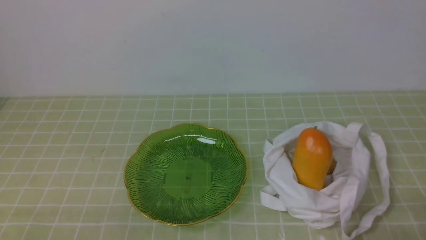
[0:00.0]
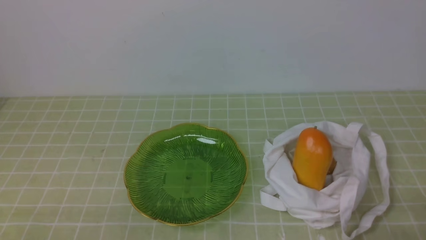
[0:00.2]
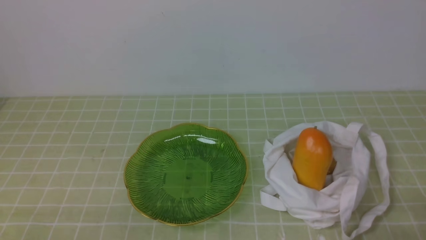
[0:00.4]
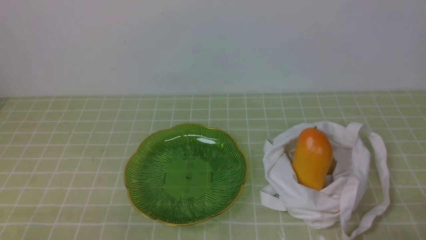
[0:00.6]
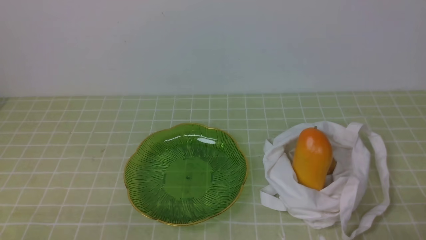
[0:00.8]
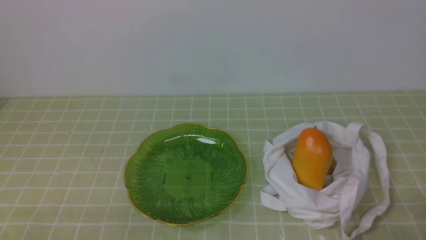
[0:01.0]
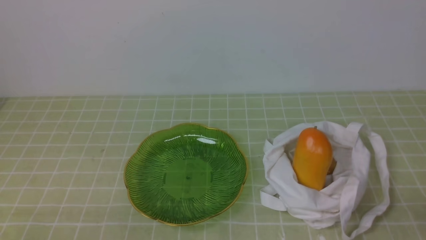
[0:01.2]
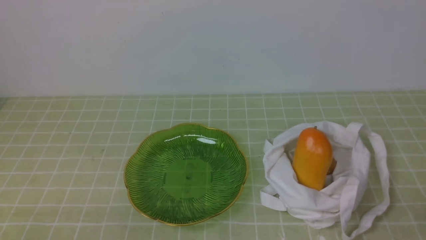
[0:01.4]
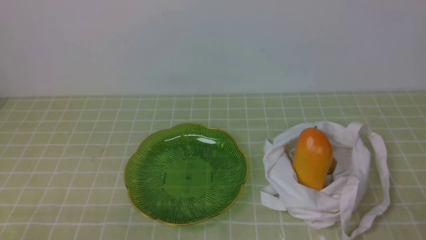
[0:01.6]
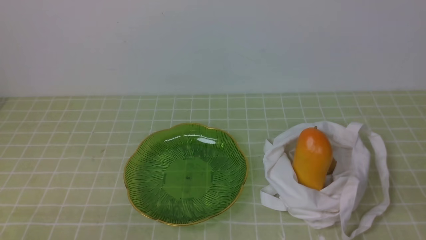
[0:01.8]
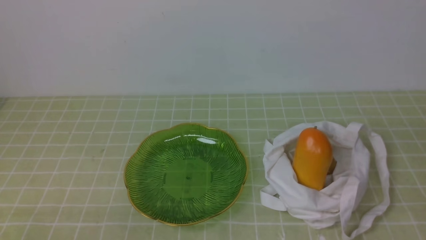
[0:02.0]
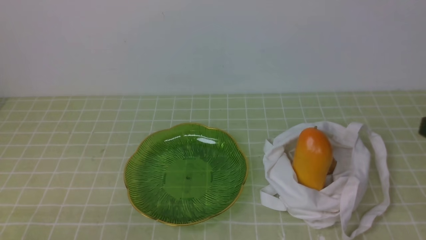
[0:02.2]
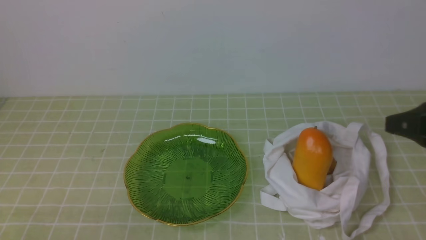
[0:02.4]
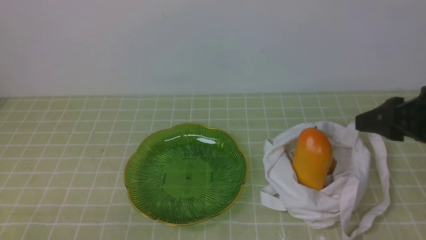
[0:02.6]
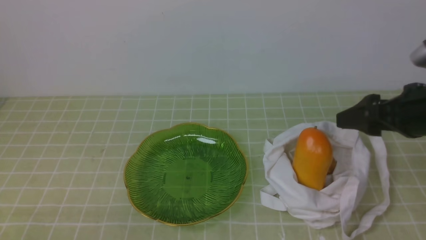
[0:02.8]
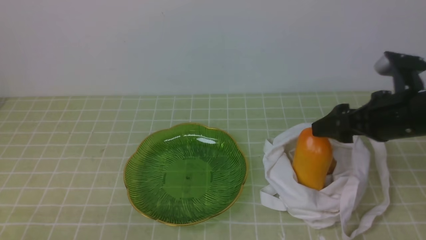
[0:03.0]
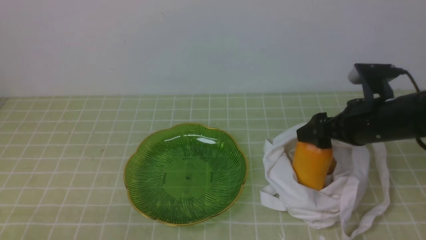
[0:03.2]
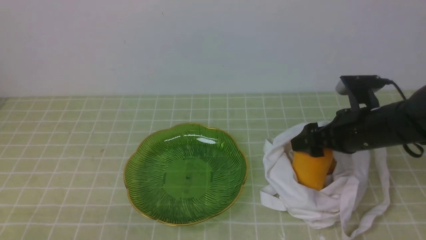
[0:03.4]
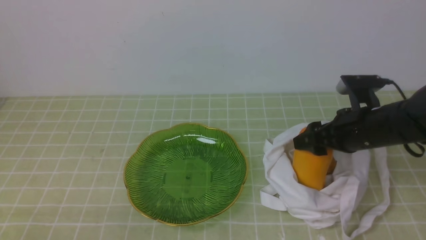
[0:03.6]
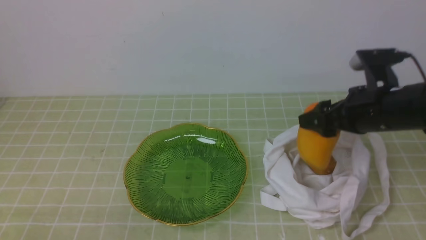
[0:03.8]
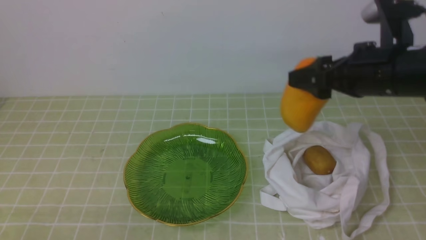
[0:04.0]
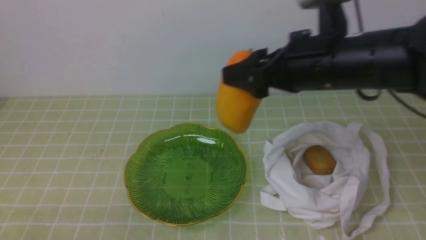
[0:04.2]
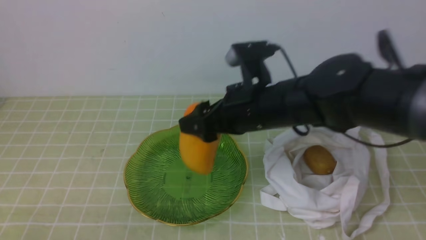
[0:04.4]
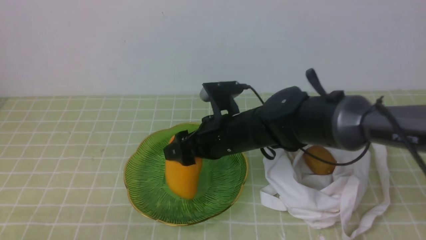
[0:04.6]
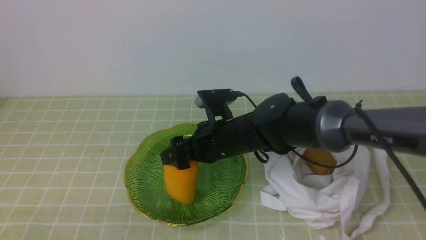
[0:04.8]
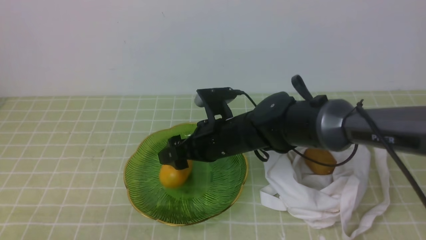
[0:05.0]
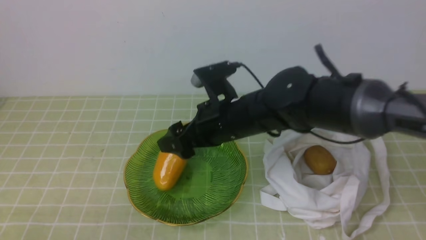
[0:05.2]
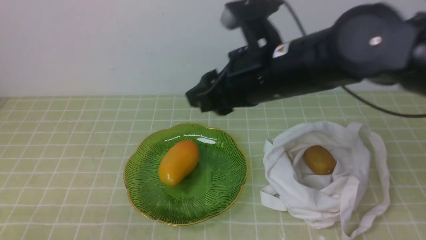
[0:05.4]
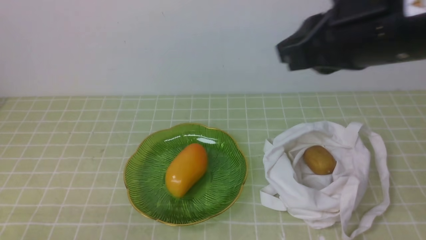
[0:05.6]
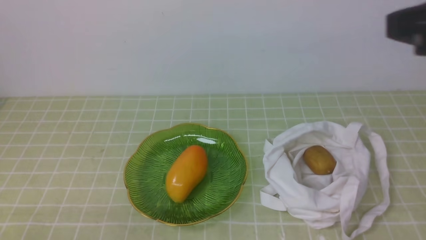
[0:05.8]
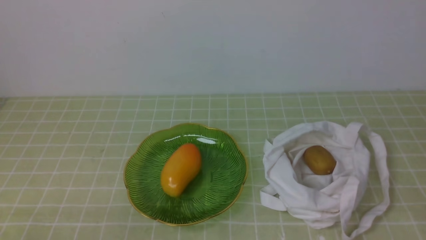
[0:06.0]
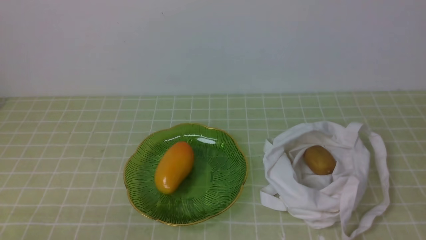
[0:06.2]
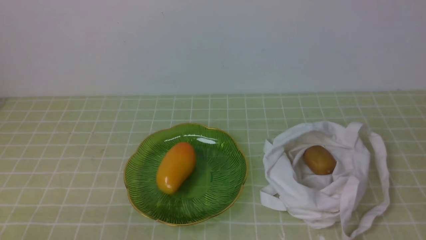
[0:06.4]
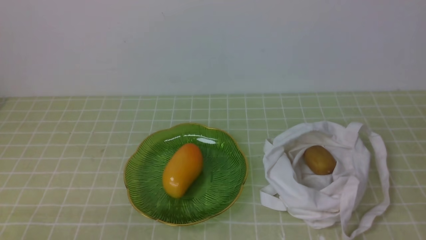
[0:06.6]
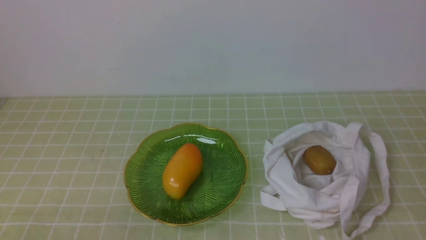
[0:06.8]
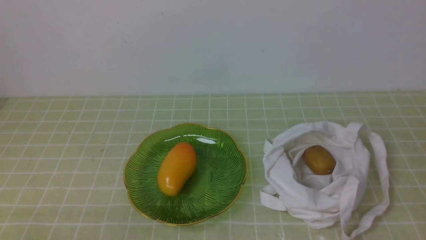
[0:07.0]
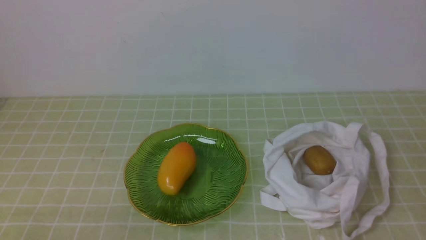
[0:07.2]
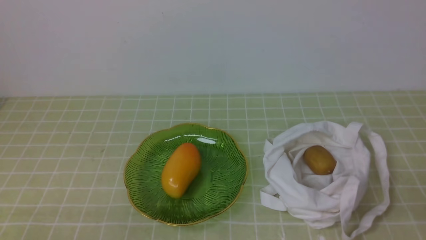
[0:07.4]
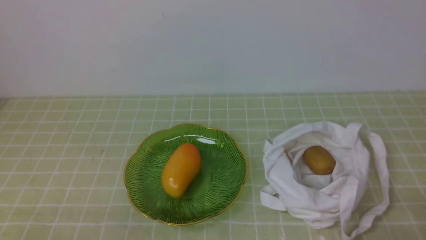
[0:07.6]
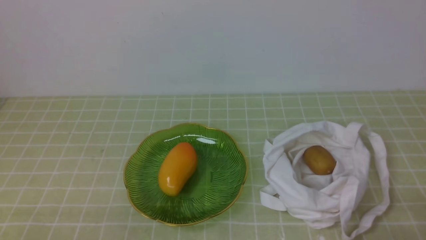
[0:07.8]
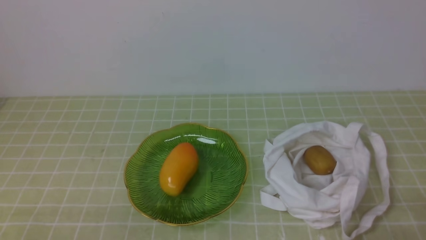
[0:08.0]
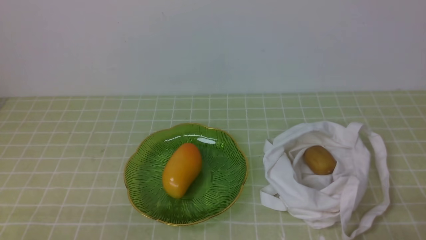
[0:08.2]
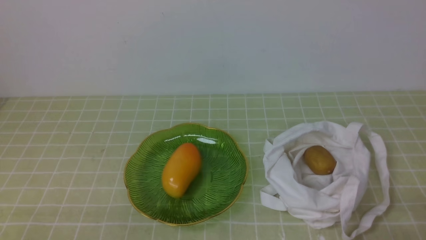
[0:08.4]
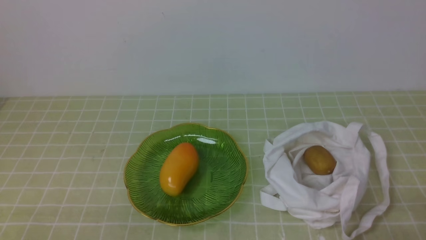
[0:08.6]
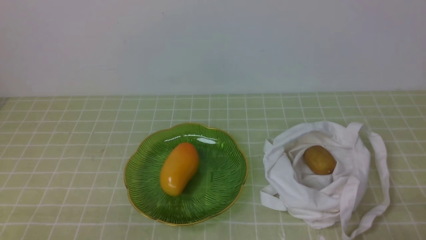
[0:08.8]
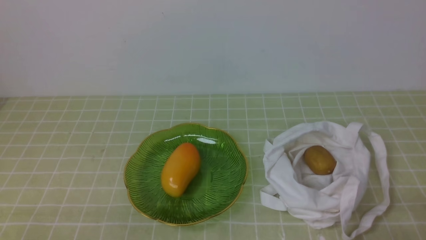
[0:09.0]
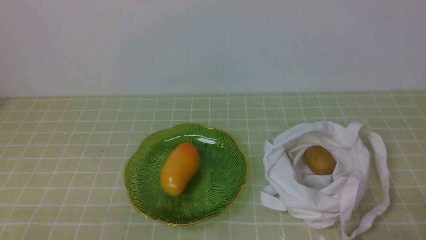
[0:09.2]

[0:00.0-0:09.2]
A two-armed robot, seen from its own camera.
Step, 0:00.0 to 0:03.6: use the right arm to grab a mango from the bag.
Step, 0:03.8 to 0:05.0: use the right arm to put the mango into the empty plate on the left.
0:01.6 to 0:03.0: The right gripper is displaced forward by about 25 cm, and opens.
0:03.0 to 0:04.6: The right gripper is displaced to the left by roughly 25 cm.
0:04.6 to 0:06.2: The right gripper heads to the right, backward and upward, covering some 40 cm, and closes.
0:06.2 to 0:07.6: The right gripper is displaced downward by approximately 20 cm.
0:07.6 to 0:09.2: Both grippers stay about where they are.

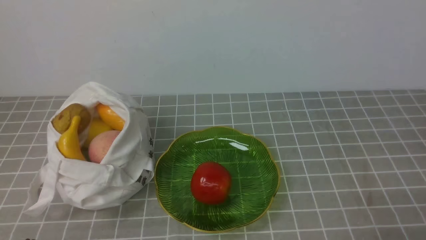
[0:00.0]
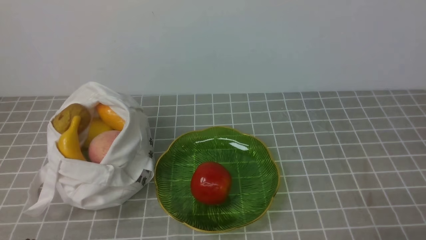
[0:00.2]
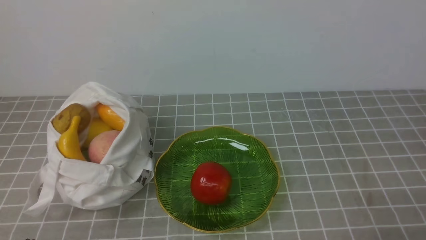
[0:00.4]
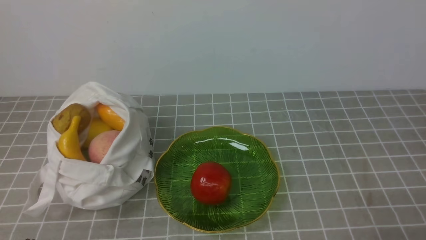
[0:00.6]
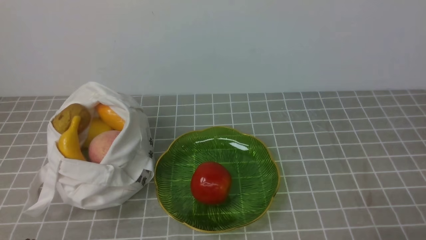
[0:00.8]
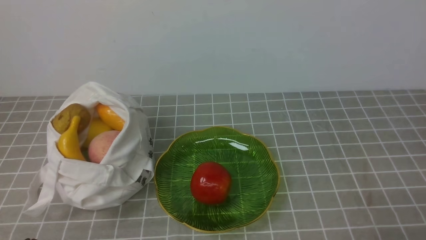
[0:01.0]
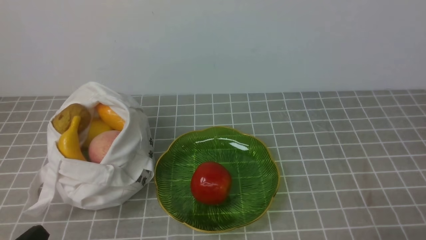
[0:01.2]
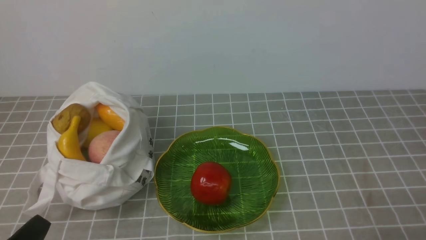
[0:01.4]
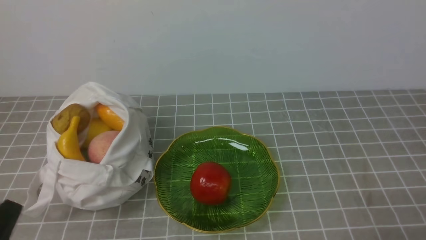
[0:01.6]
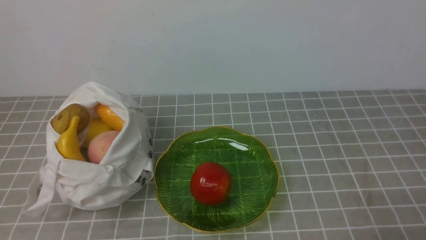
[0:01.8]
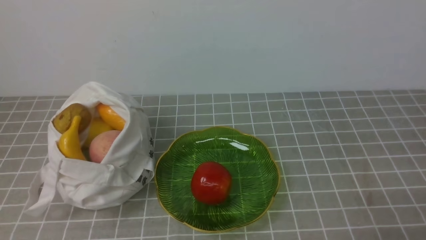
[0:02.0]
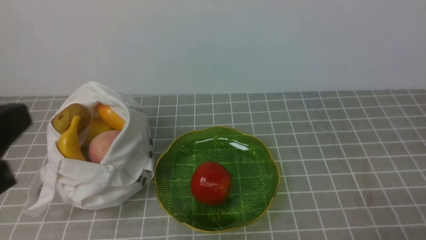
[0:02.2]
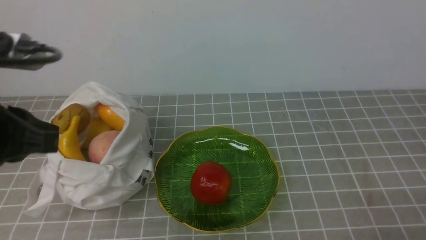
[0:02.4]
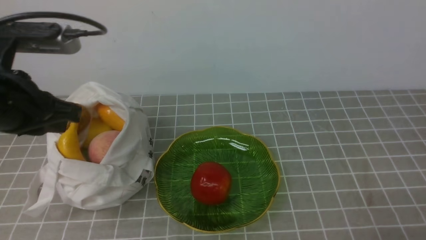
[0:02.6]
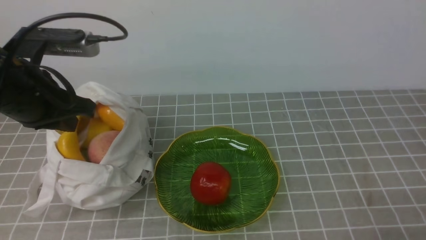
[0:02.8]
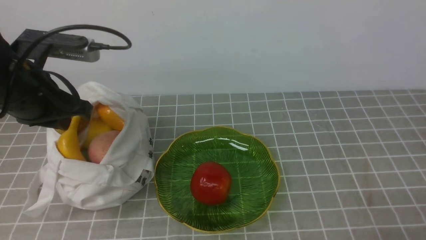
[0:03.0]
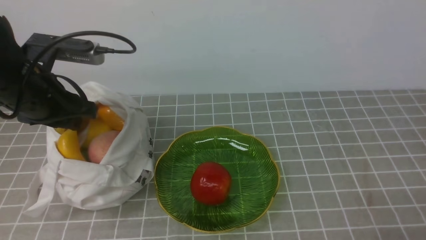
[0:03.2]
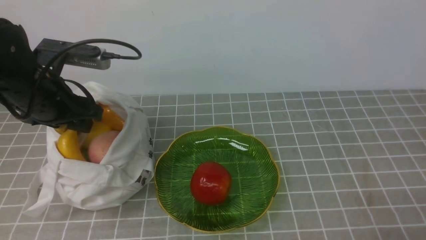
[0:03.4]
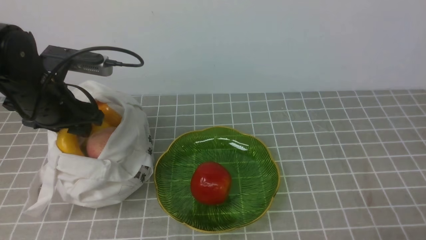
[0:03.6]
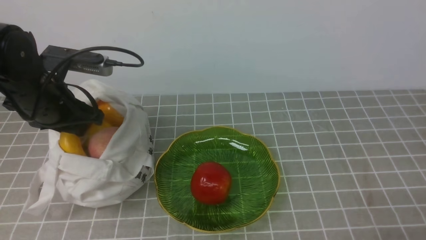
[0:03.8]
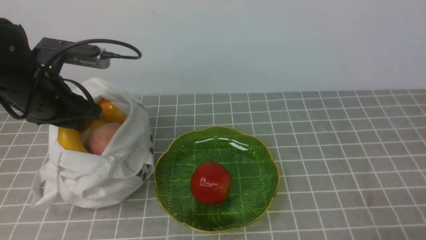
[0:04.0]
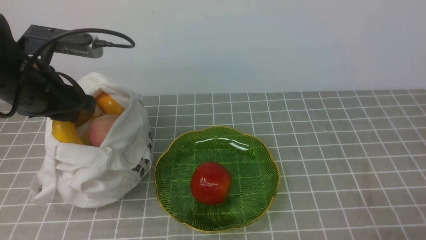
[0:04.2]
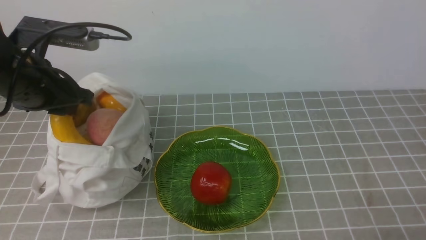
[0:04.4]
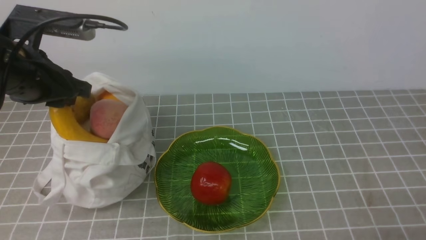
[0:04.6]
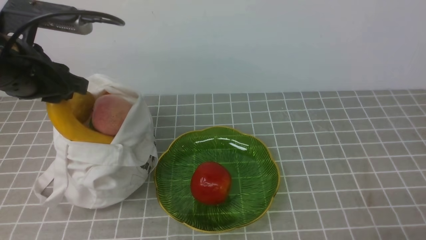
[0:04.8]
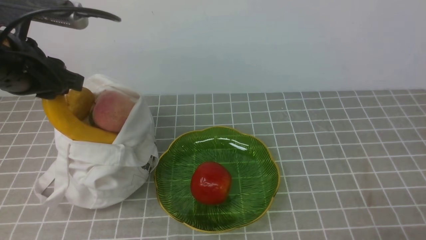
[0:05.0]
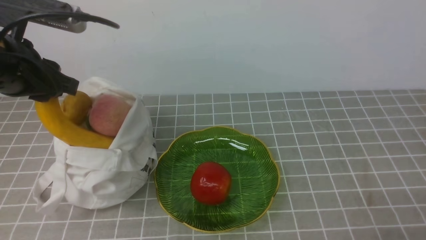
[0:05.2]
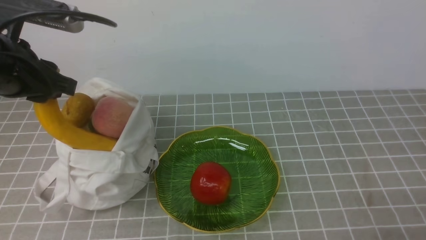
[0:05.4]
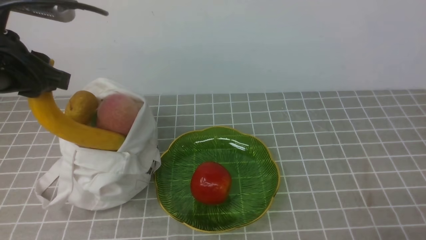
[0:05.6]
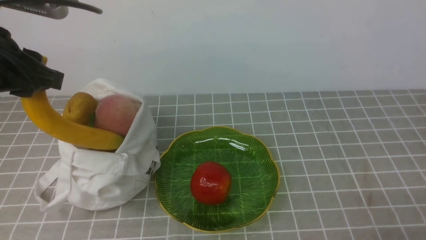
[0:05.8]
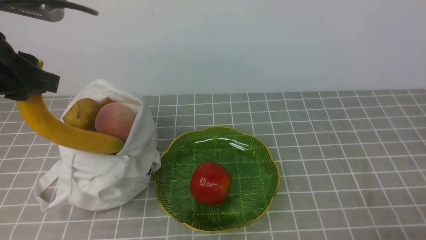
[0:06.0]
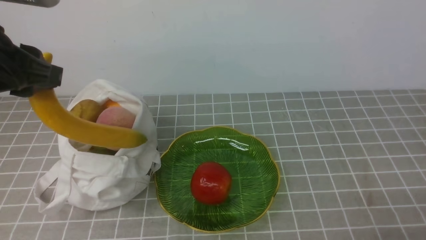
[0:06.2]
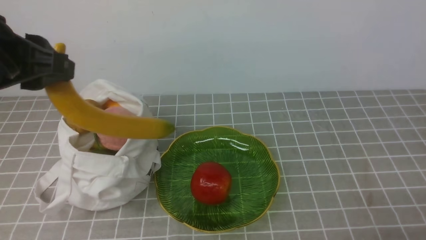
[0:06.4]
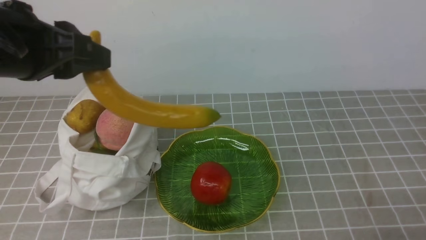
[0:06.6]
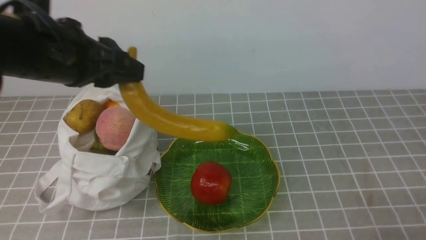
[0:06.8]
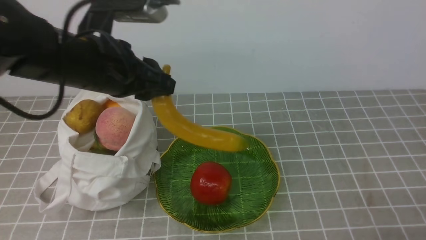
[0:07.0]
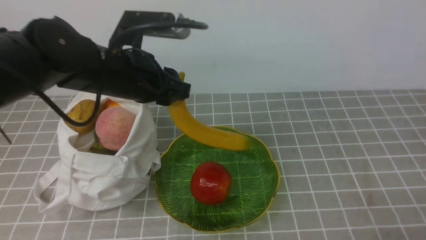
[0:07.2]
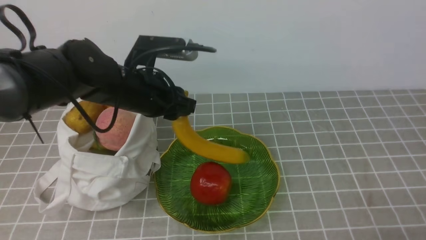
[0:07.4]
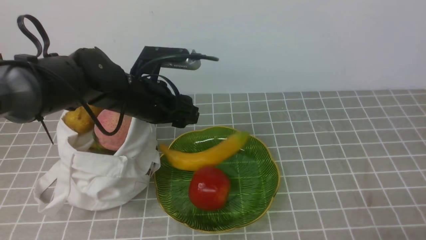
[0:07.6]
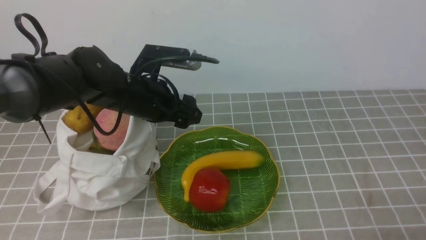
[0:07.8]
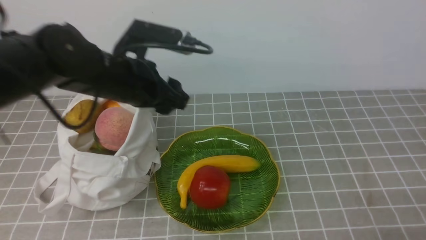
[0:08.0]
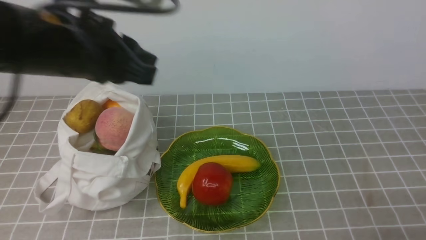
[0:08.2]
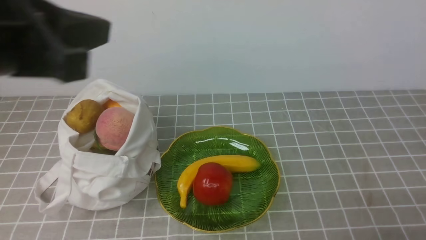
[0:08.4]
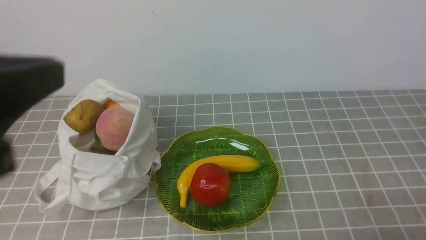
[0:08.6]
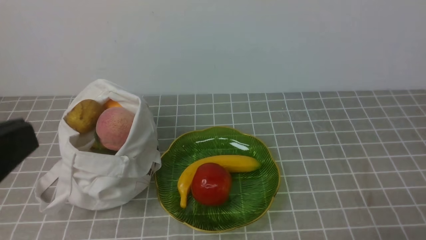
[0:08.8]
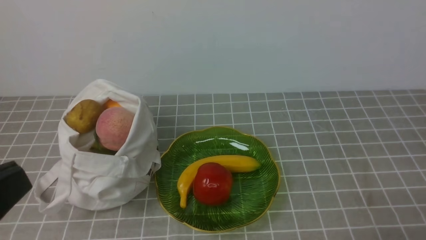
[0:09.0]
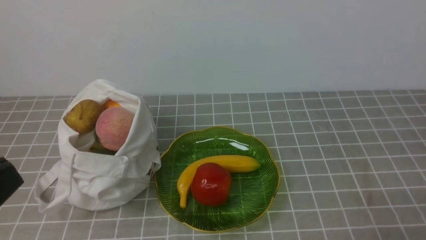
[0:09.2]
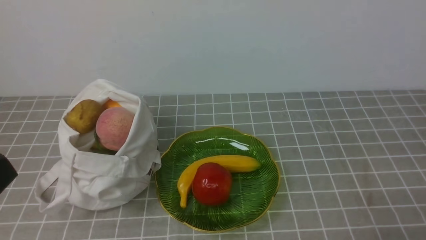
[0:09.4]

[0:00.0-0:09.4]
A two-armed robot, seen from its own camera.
Step, 0:00.0 to 0:04.0: use the left arm to grab a banana from the bag.
Step, 0:04.2 to 0:07.8: use the left arm to put the banana into the empty plate on the right.
0:01.6 to 0:03.2: The left gripper goes approximately 25 cm forward and upward, and opens up.
0:03.2 to 0:04.8: There are only small adjustments of the grippers.
0:04.8 to 0:06.2: The left gripper goes roughly 10 cm backward and upward.
0:06.2 to 0:07.8: The left gripper moves downward, to the right and forward, about 20 cm, and opens.
0:07.8 to 0:09.4: The left gripper heads backward, covering about 30 cm, and closes its fingers.
